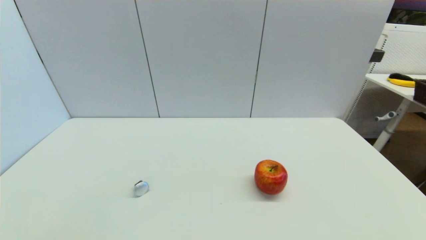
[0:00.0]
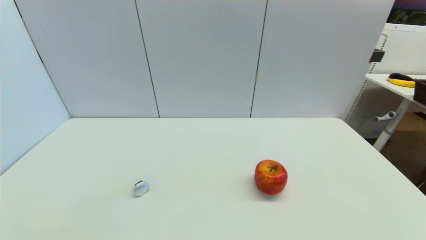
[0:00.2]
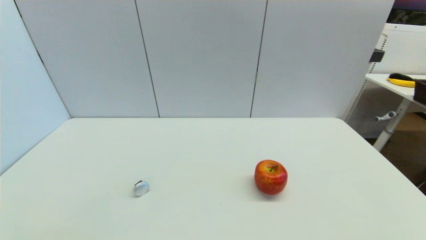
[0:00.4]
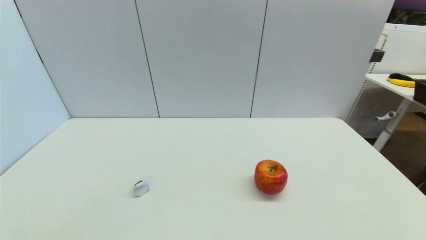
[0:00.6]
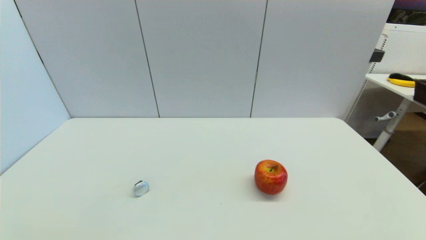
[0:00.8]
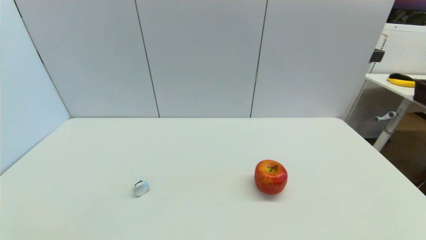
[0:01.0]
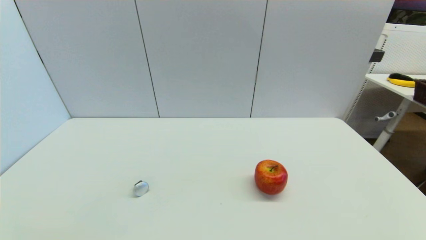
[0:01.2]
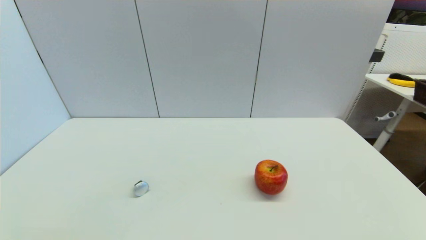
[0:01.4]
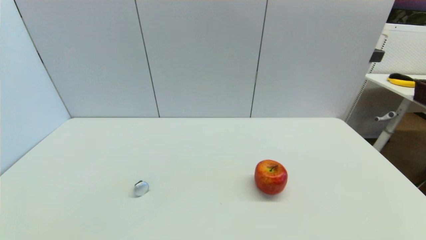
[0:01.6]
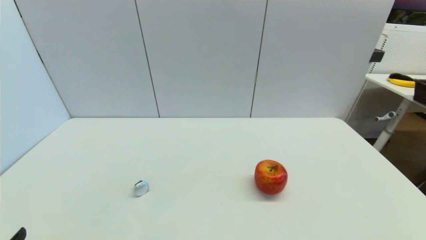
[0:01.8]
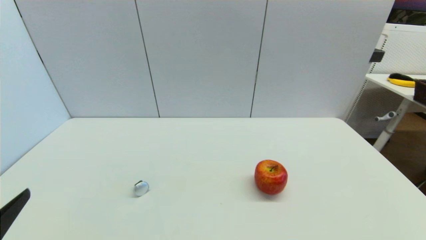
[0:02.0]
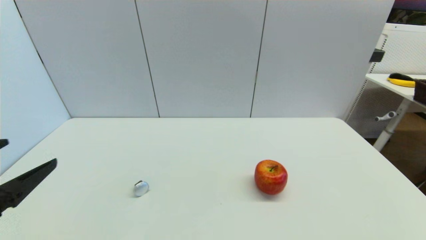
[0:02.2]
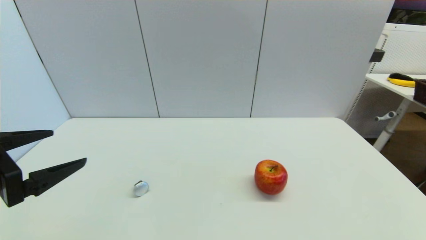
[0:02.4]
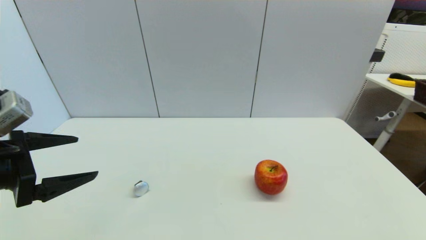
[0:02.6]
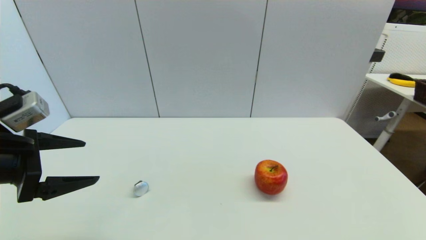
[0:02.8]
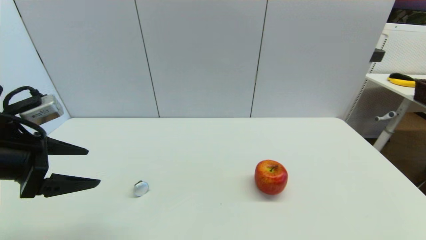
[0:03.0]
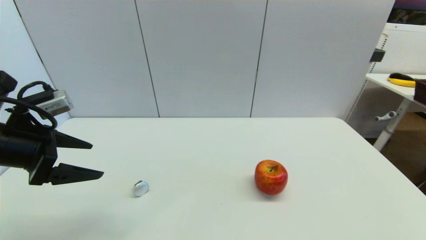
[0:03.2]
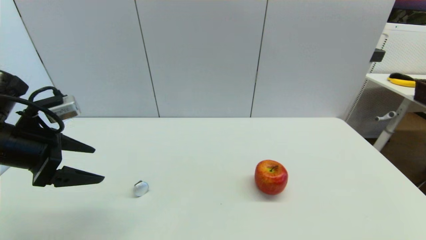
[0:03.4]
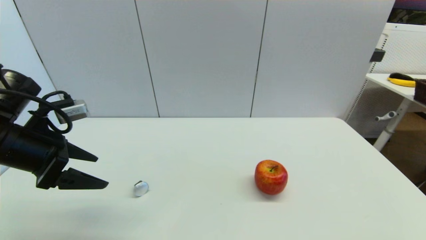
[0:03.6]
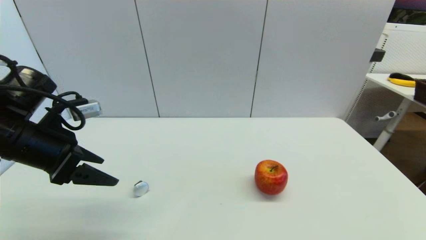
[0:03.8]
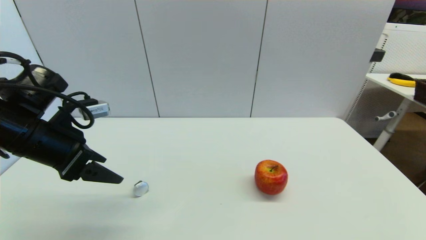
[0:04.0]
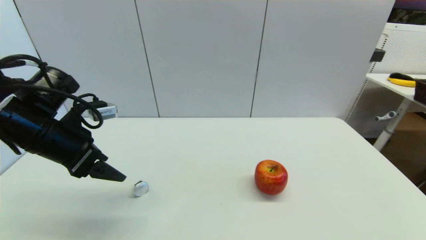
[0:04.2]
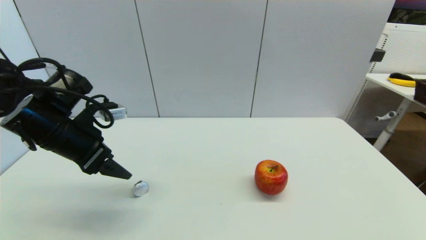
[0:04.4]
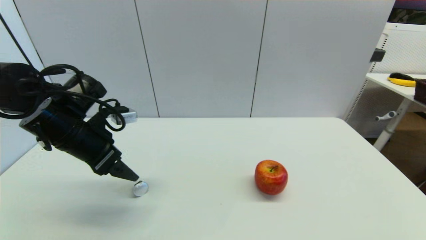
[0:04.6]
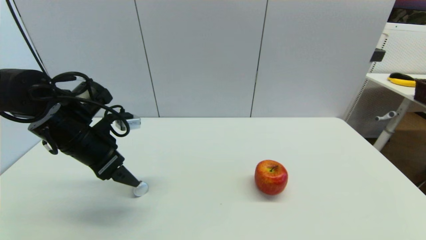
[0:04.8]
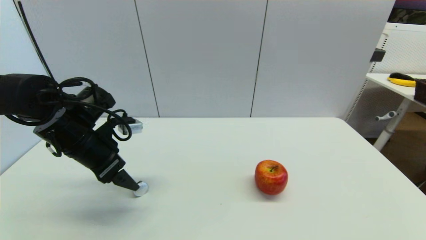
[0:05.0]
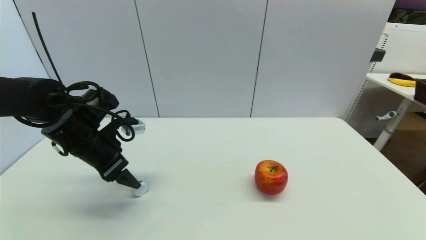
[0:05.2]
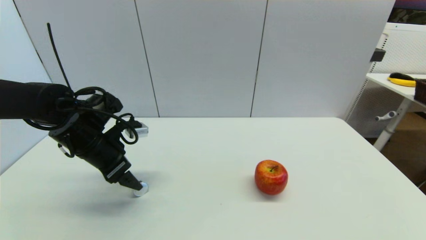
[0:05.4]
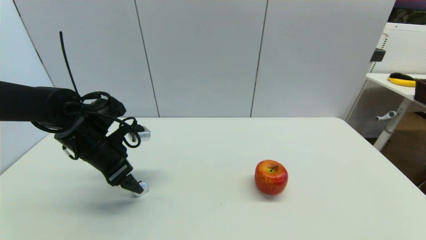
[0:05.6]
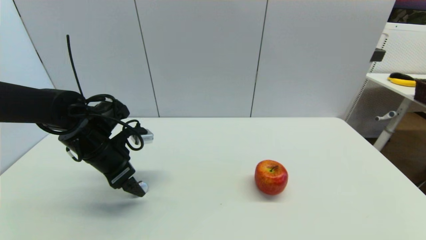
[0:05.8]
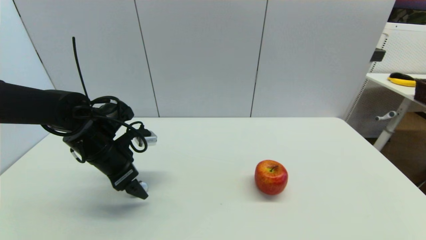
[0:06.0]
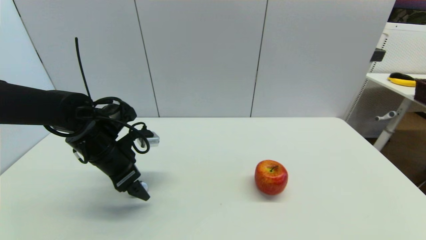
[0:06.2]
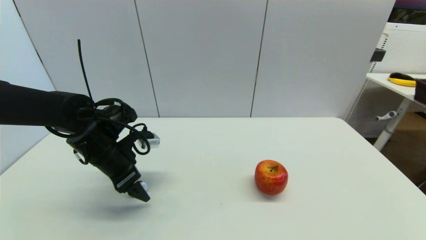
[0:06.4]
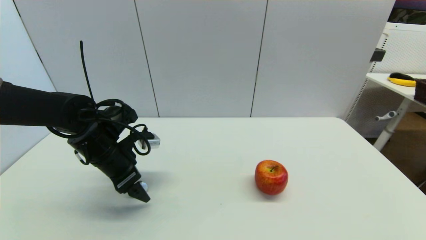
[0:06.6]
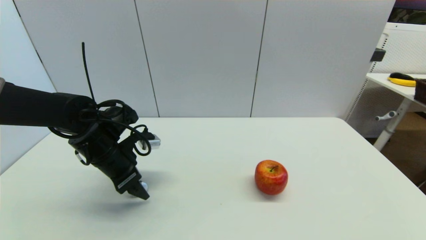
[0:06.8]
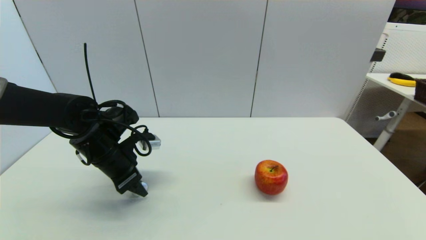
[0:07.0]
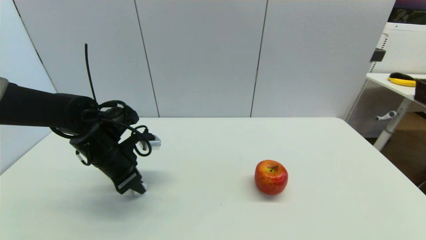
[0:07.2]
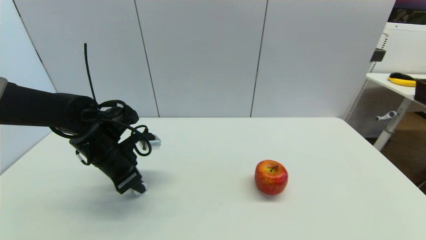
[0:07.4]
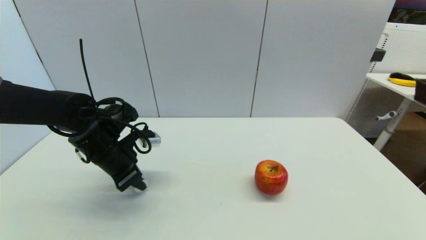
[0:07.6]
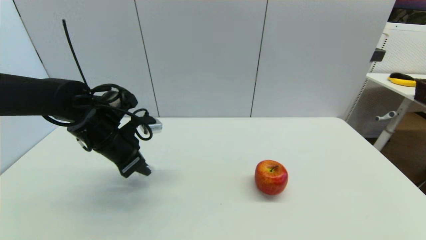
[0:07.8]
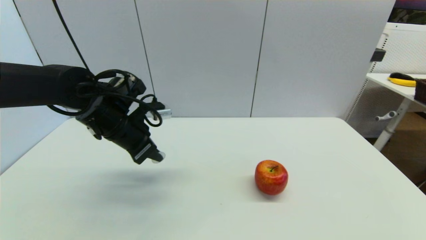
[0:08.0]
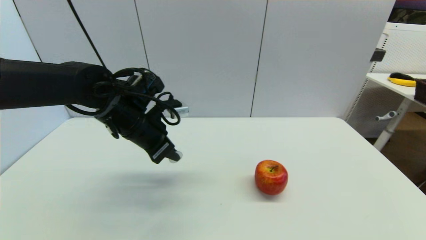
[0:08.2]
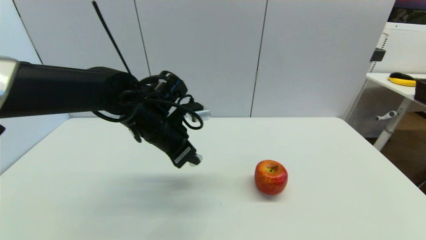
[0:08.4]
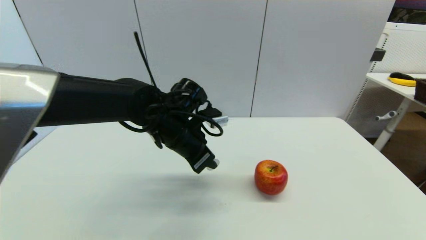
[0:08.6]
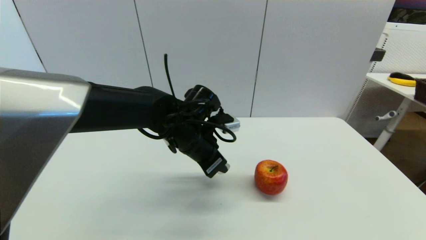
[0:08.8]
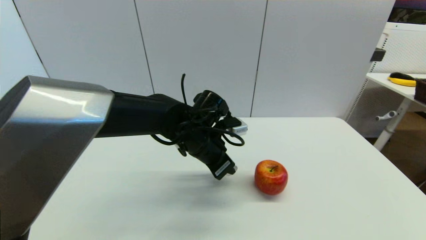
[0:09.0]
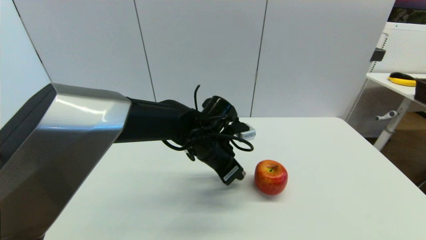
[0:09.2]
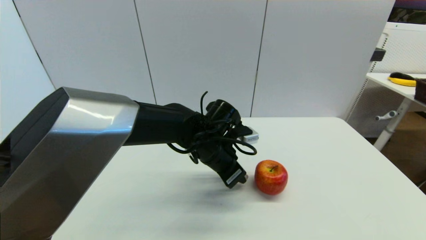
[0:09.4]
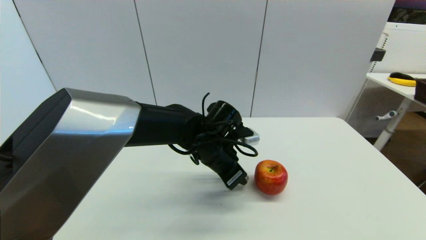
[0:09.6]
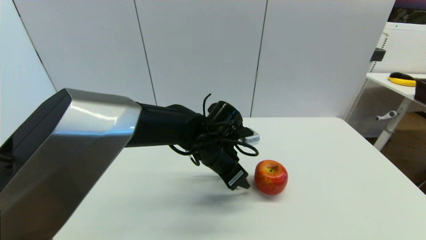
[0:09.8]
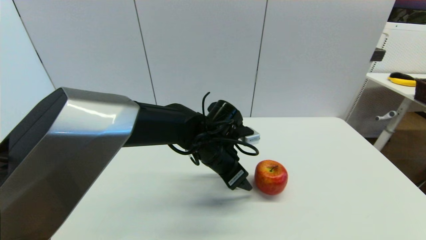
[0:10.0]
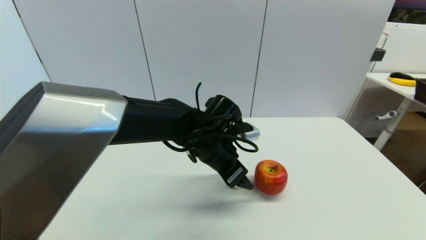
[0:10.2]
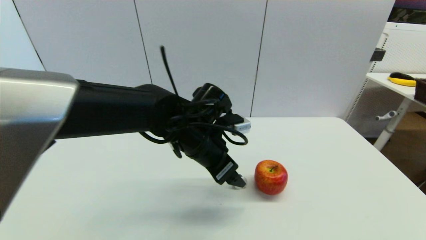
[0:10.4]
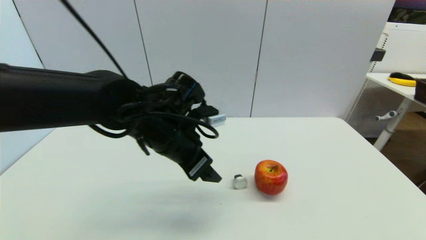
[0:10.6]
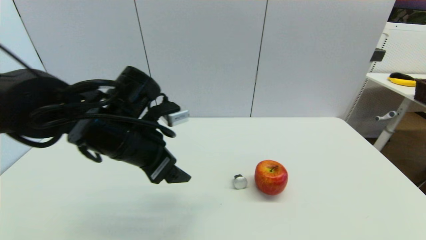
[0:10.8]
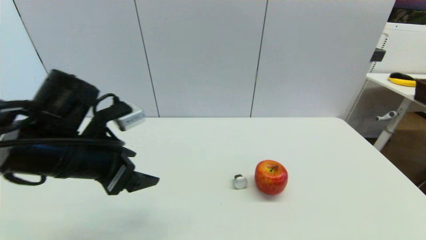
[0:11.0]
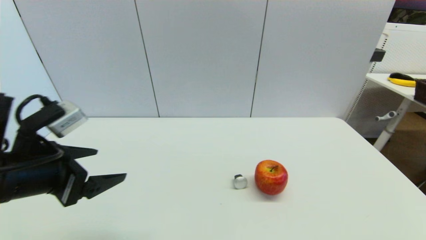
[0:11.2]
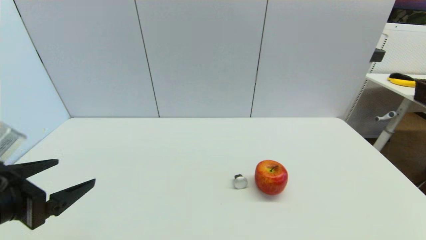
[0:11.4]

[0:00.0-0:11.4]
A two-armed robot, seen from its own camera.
Step, 0:01.8 to 0:07.4: Grasp the coffee capsule with left gripper.
Step, 0:07.8 to 0:09.8: Place the coffee capsule on the table with left gripper.
0:00.0 to 0:01.4: Neither gripper changes place.
0:01.4 to 0:02.8: The left gripper travels forward and upward by approximately 25 cm.
0:02.8 to 0:04.2: The left gripper travels forward by about 10 cm.
0:04.2 to 0:05.6: The left gripper moves downward and forward, about 10 cm.
0:05.6 to 0:07.2: The left gripper closes.
0:07.2 to 0:08.6: The left gripper goes about 15 cm to the right.
0:08.6 to 0:10.0: The left gripper shifts some 5 cm to the right, and opens.
0:10.0 to 0:11.4: The left gripper moves to the left and backward, roughly 35 cm, and opens its fingers.

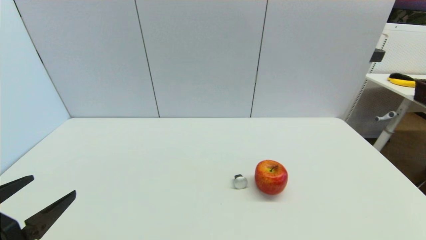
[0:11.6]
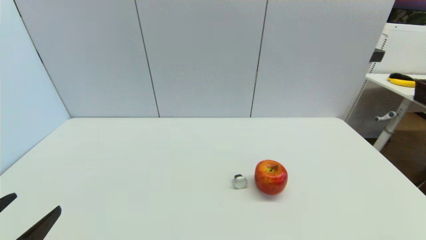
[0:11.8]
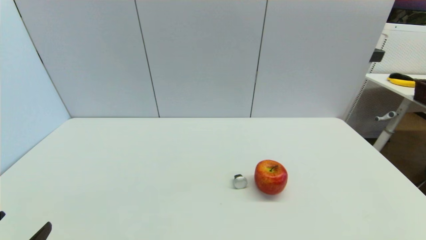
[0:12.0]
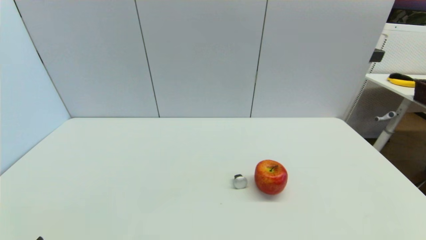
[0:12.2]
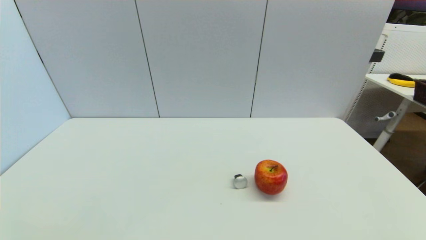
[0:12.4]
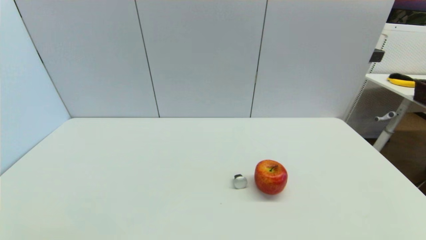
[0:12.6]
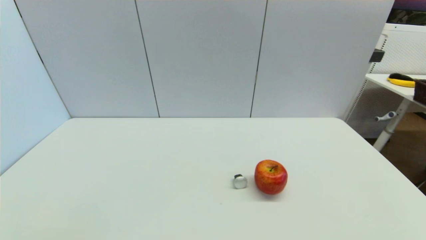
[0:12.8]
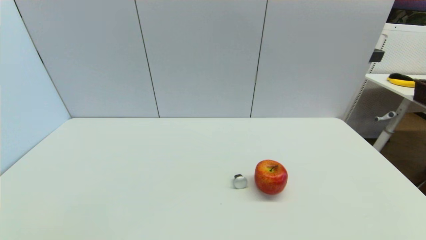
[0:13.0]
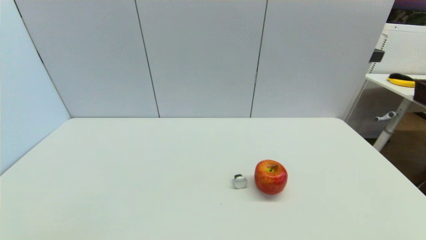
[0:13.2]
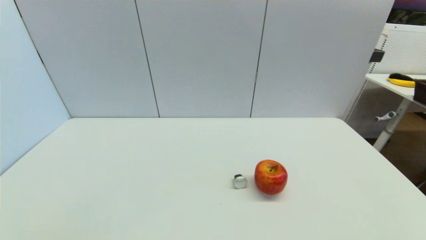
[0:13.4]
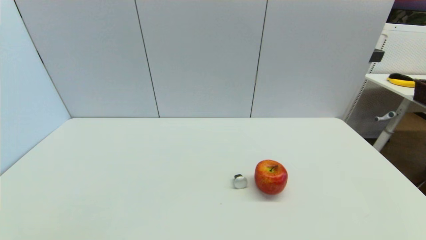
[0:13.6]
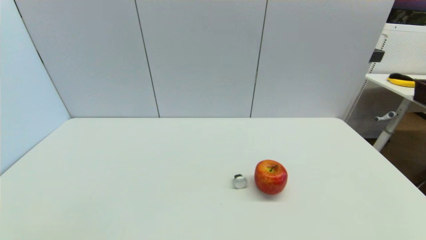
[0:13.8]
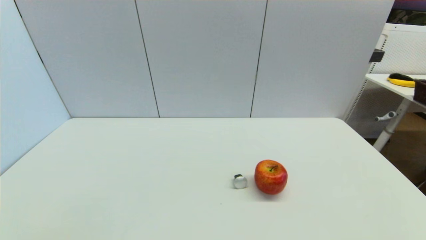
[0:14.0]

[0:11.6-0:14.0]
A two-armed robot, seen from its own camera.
0:11.6 to 0:12.8: The left gripper is displaced downward and backward by some 15 cm.
0:12.8 to 0:14.0: Neither gripper changes place.
